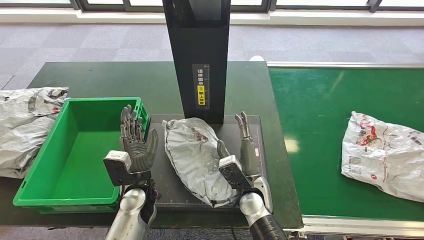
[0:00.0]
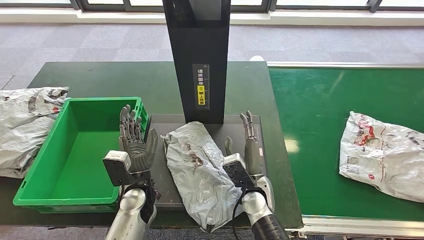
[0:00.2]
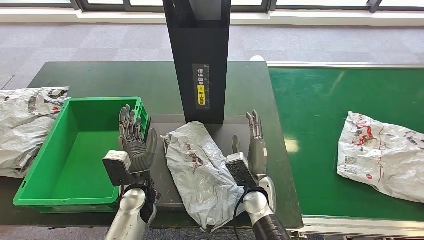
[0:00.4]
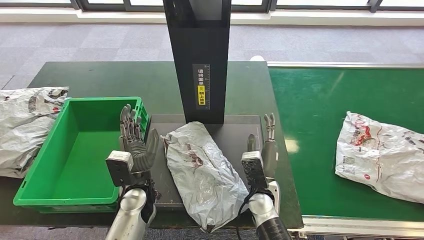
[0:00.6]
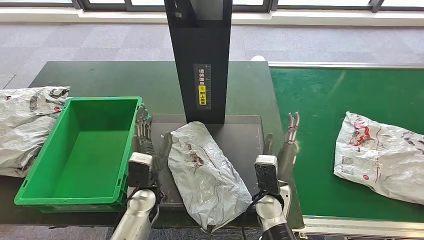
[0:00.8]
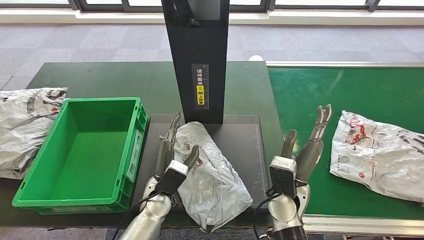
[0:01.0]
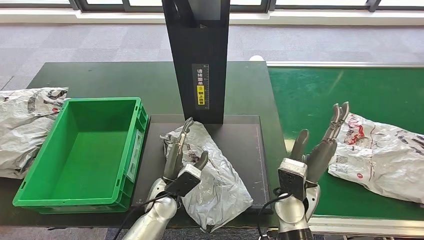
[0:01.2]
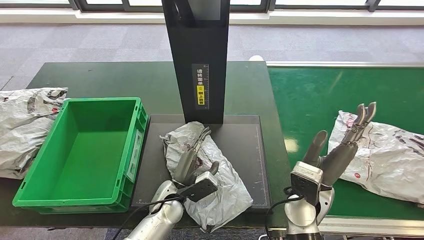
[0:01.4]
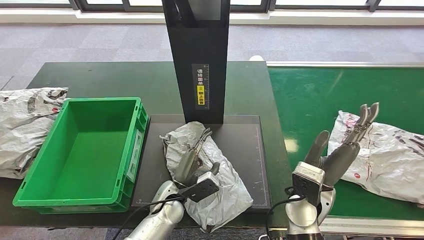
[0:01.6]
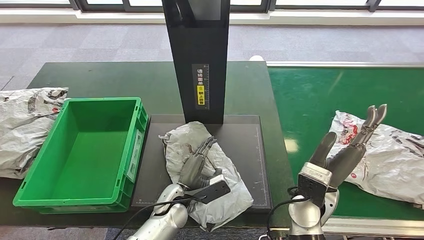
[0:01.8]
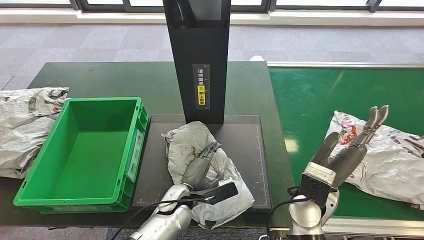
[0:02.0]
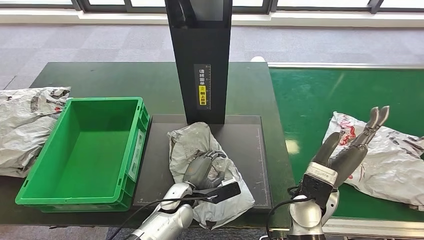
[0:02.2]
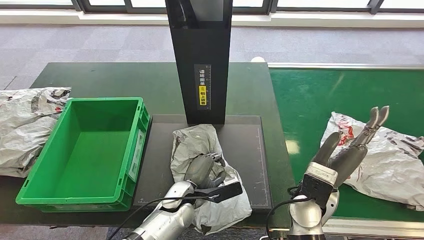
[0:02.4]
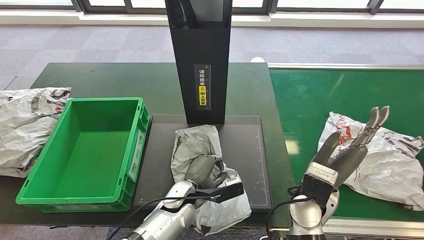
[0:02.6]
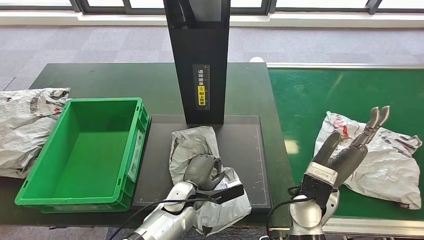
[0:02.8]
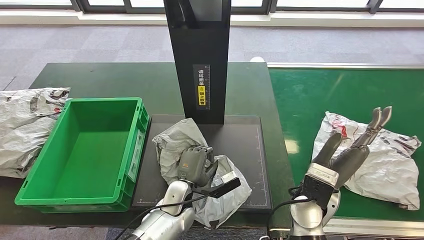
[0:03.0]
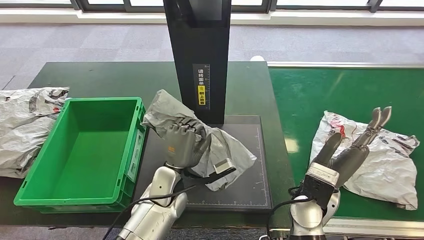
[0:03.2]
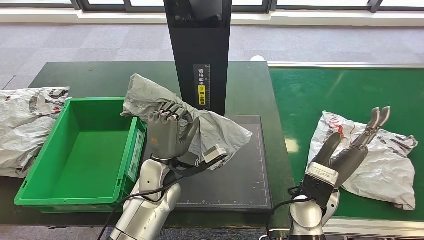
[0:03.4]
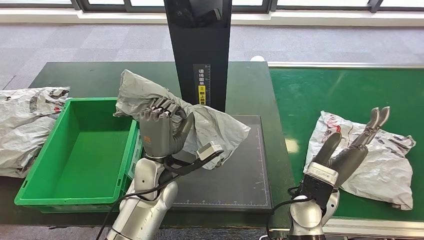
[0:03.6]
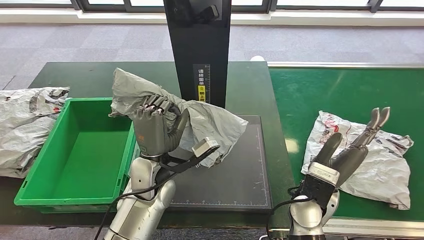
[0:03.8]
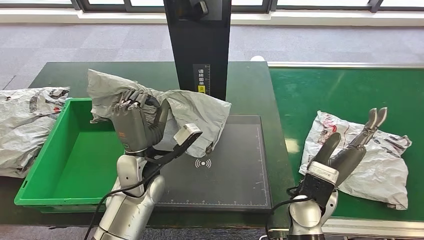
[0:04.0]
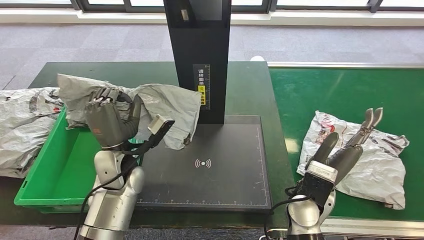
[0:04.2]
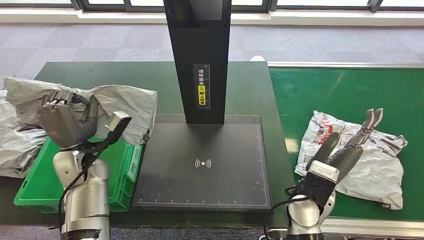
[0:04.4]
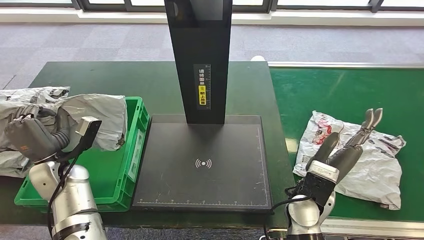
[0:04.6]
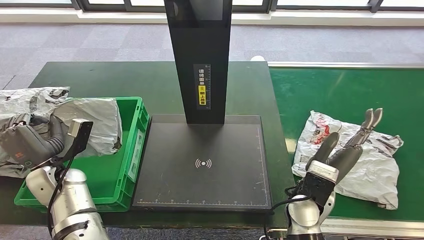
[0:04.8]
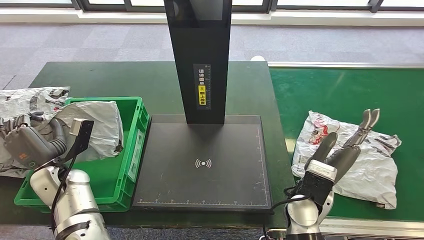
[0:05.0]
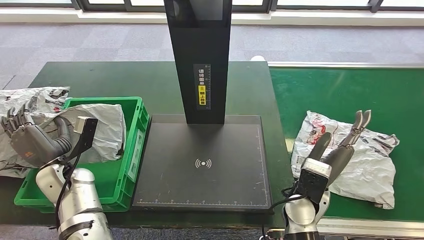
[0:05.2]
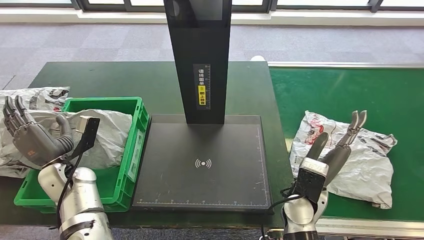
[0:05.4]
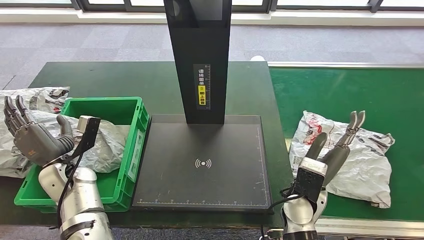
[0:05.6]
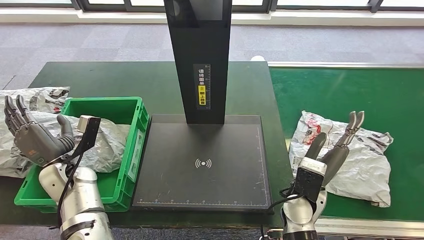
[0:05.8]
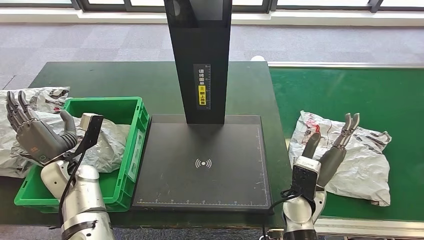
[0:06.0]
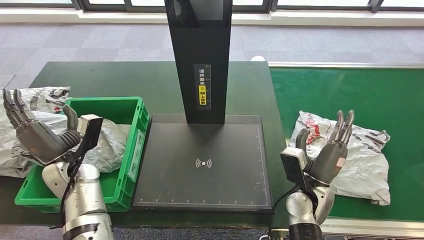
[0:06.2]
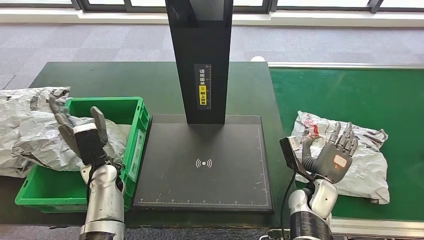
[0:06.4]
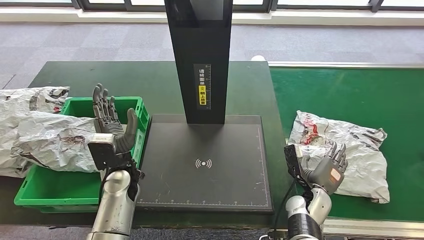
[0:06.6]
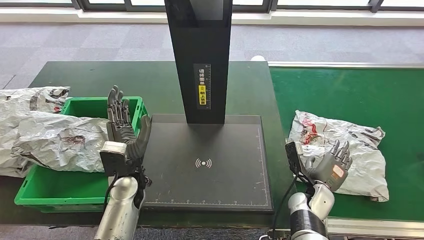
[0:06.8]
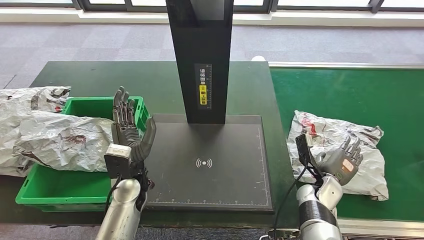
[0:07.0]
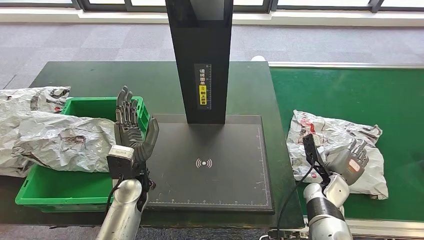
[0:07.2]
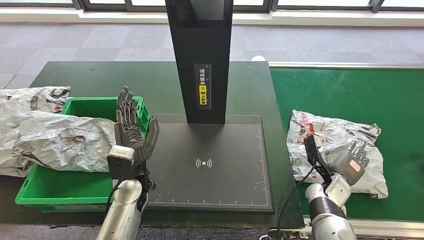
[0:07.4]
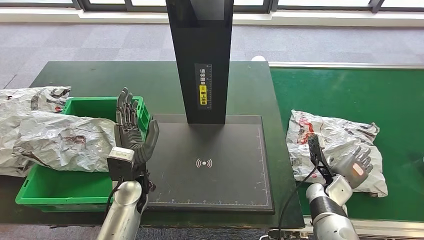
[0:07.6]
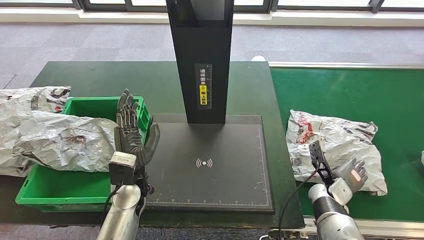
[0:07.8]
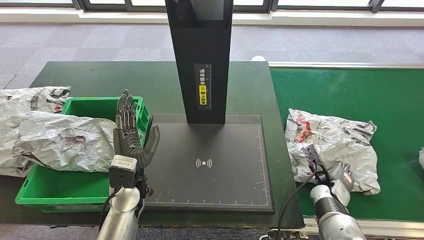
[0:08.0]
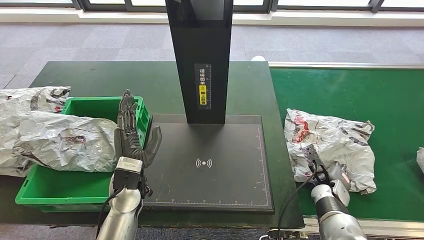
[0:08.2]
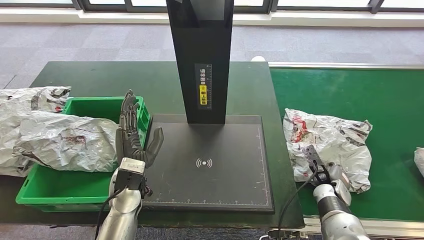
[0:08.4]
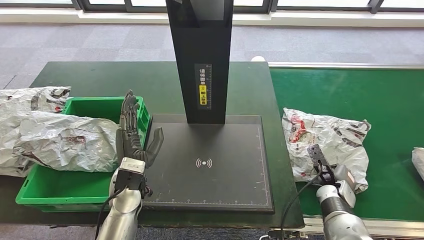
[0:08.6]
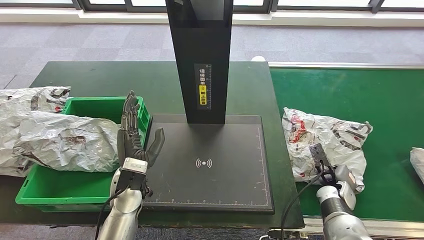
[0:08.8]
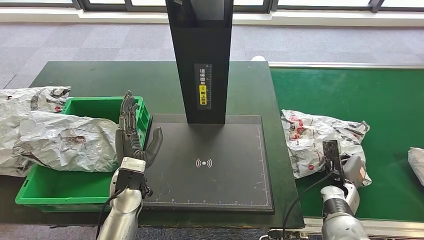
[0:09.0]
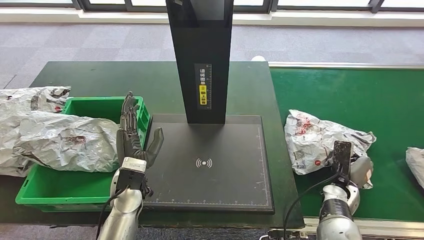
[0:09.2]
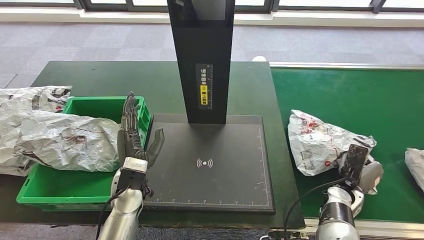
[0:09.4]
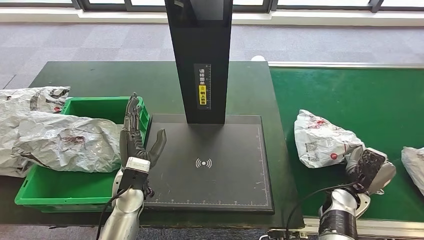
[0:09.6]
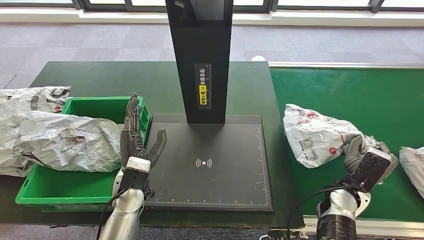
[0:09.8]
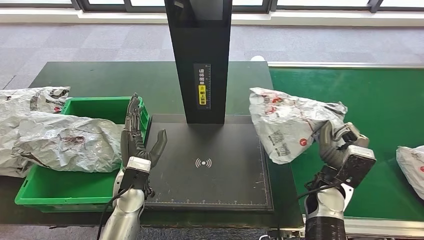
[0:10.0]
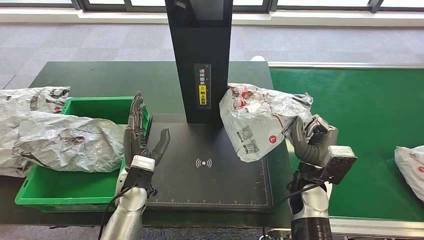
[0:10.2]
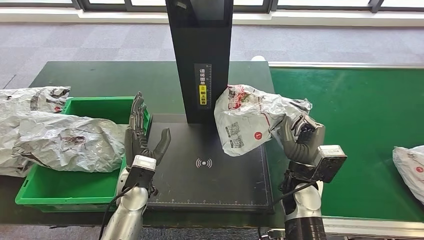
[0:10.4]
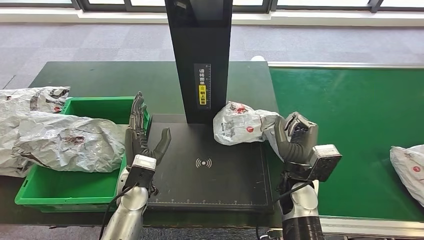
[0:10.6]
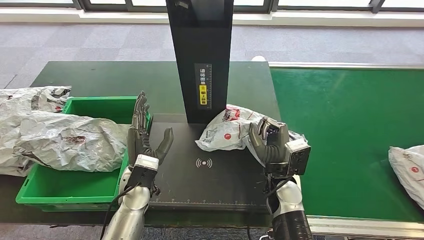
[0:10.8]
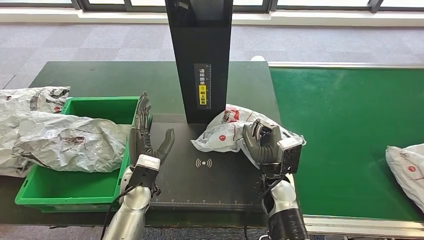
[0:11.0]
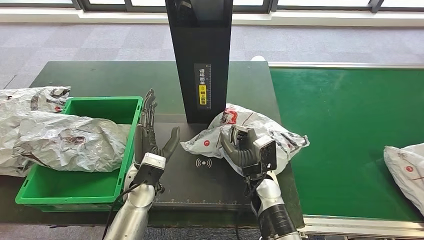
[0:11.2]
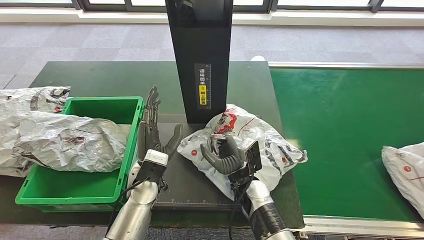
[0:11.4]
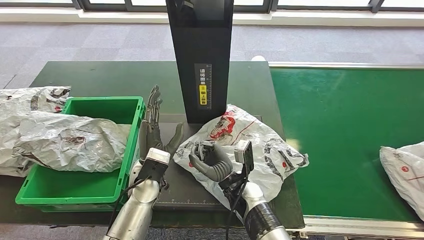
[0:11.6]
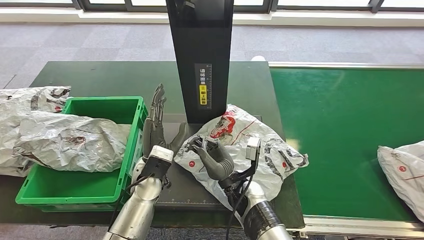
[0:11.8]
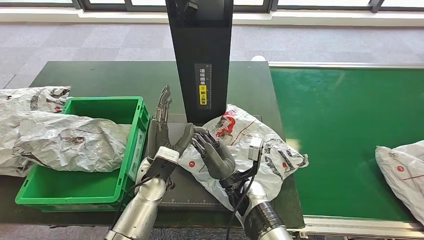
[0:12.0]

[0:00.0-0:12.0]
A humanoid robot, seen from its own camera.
Step, 0:01.0 to 0:03.8: Pick up the parcel from the inbound machine.
Step, 0:04.0 to 0:07.2: Put the parcel inside the courier box.
Step, 0:07.6 to 0:10.6: Pick up the parcel from the conveyor belt.

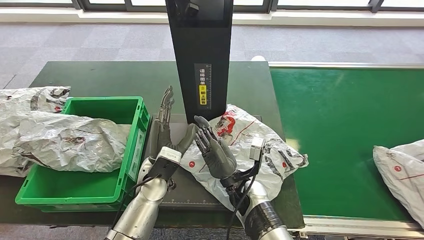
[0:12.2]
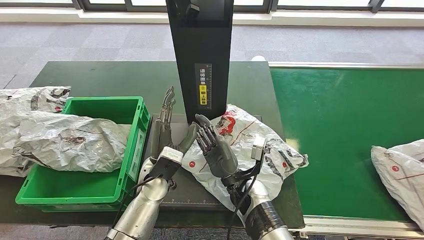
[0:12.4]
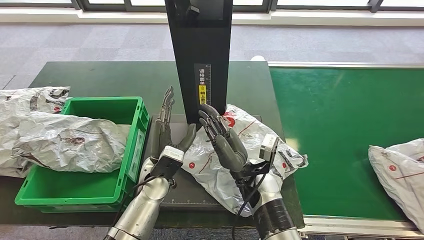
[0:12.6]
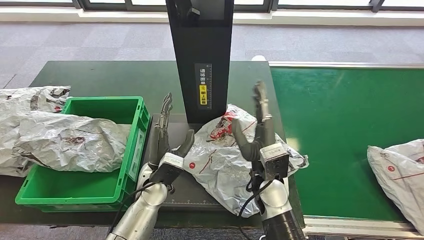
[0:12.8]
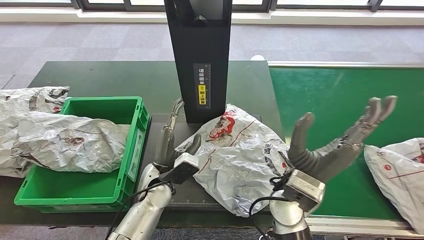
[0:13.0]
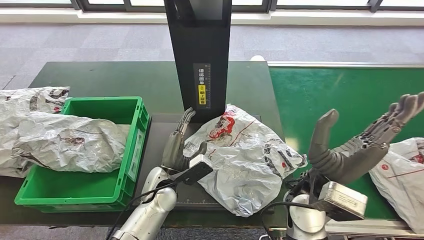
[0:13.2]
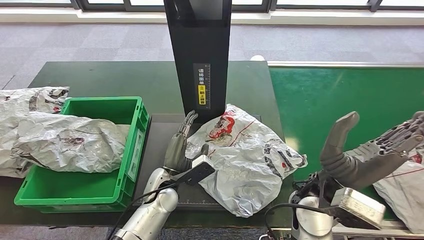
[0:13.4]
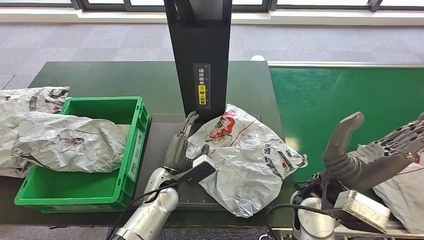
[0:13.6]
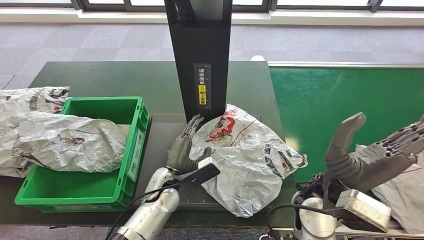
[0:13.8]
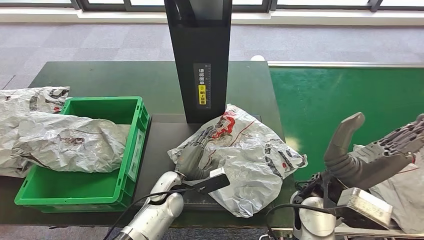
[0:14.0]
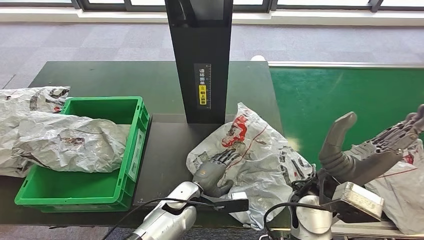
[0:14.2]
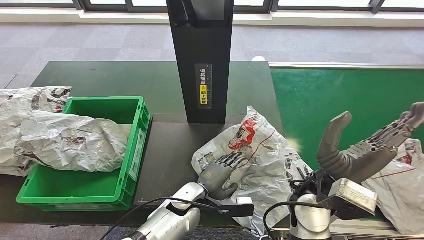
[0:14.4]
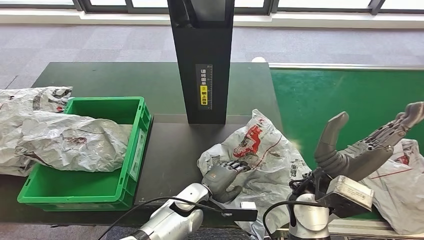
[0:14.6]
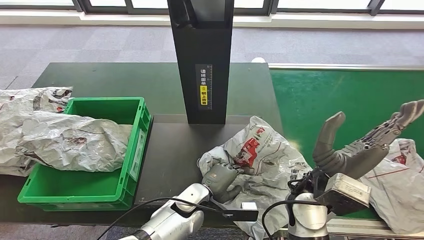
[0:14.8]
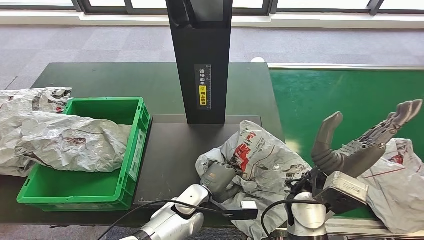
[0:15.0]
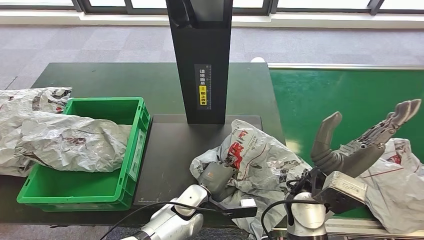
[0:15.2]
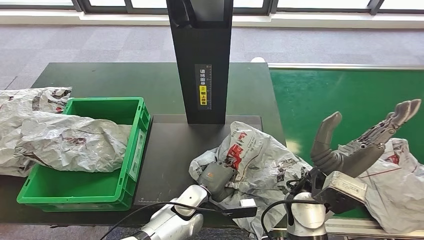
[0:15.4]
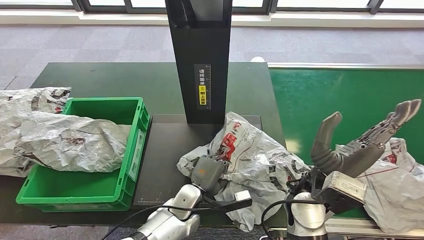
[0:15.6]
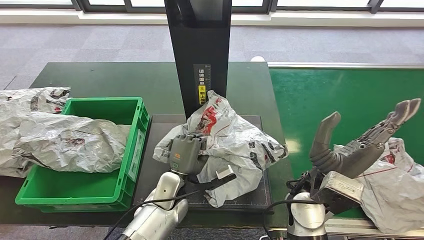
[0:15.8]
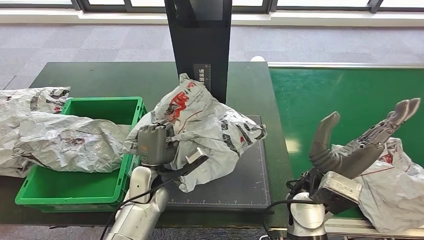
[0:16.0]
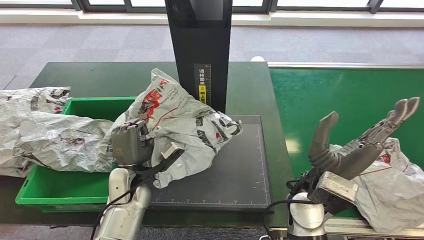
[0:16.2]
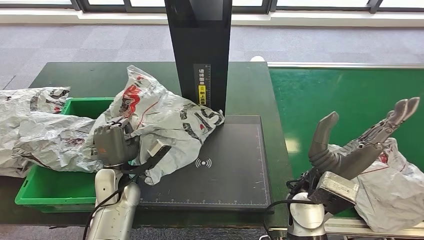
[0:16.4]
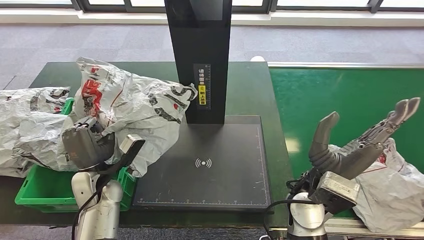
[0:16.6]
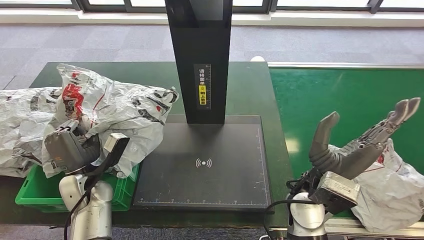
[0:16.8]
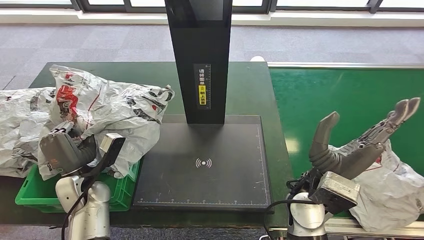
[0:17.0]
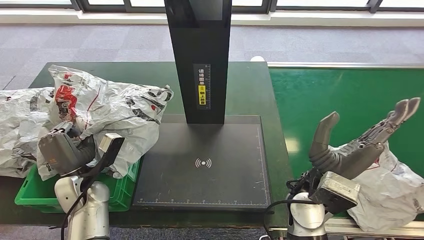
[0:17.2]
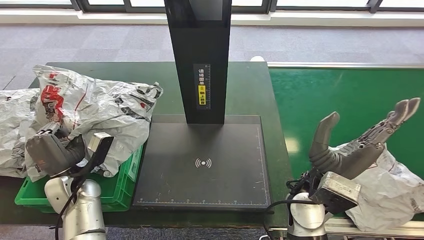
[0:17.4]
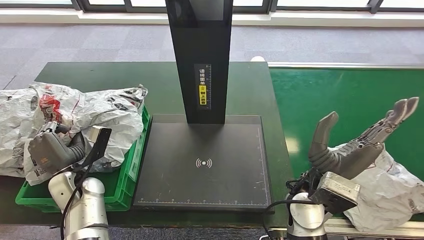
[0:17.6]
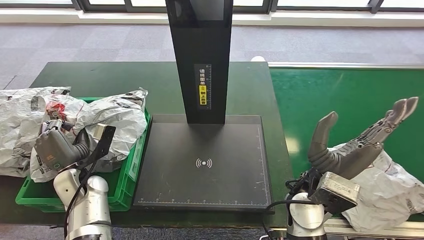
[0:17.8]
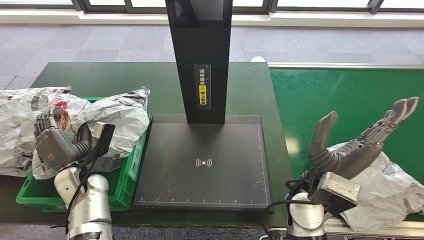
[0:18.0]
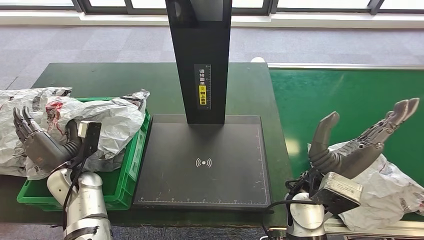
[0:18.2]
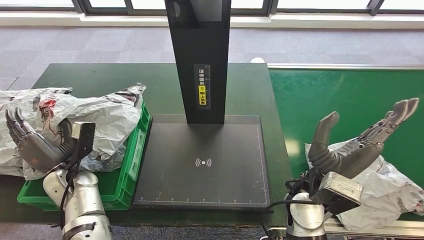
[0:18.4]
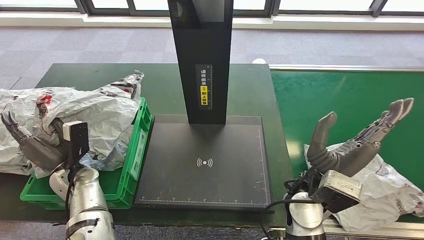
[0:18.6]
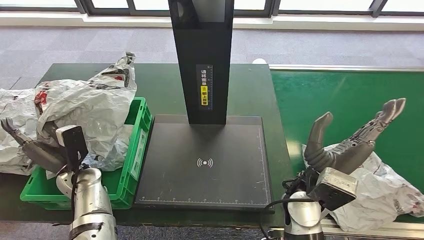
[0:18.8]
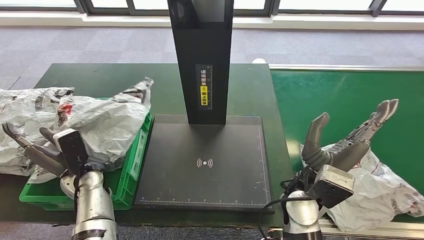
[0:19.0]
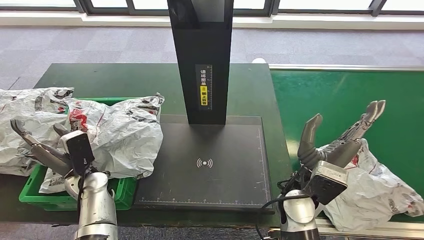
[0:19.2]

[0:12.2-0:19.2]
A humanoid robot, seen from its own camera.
Step, 0:12.8 to 0:16.8: Pick up the parcel from the inbound machine.
